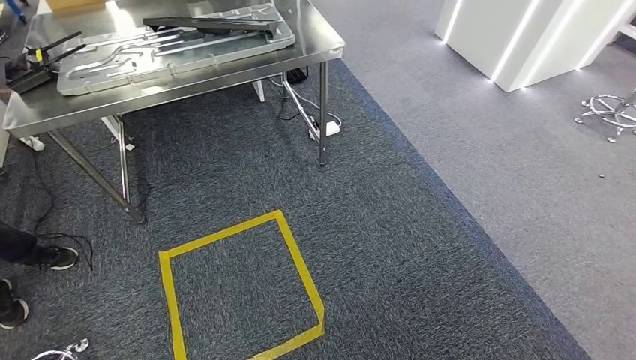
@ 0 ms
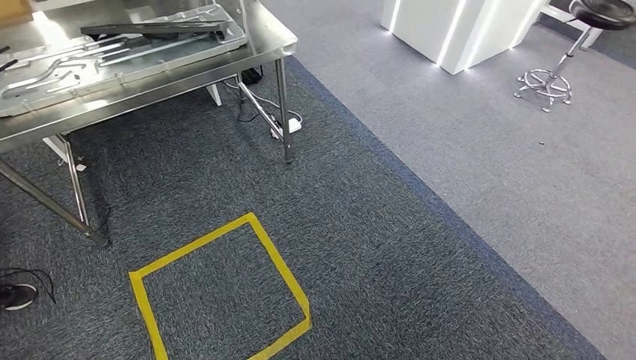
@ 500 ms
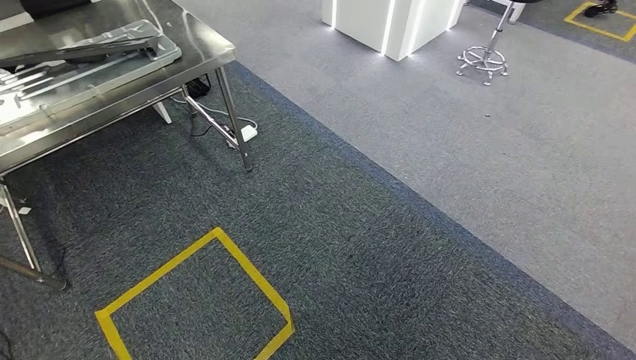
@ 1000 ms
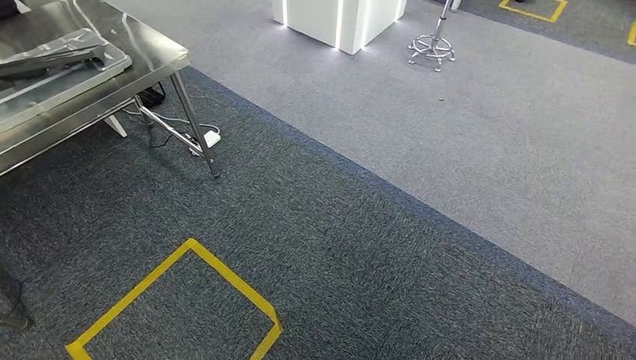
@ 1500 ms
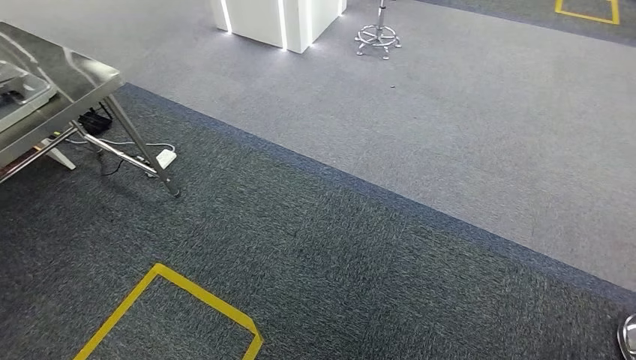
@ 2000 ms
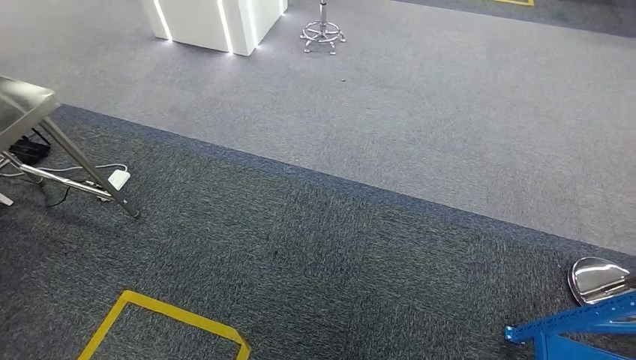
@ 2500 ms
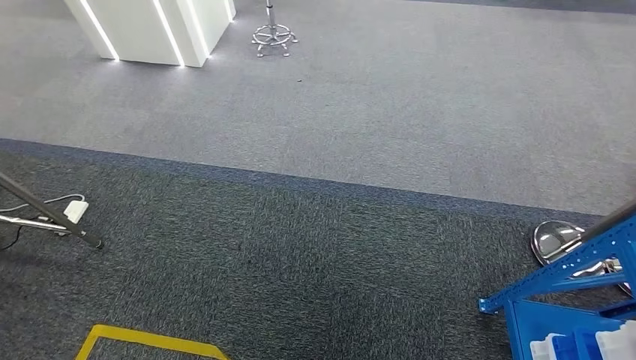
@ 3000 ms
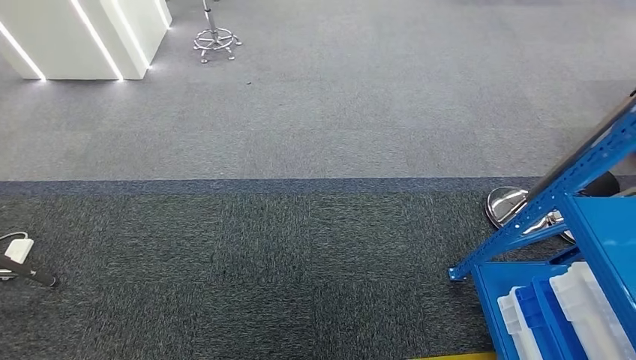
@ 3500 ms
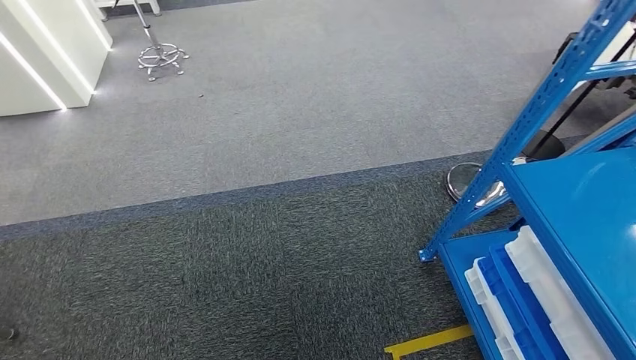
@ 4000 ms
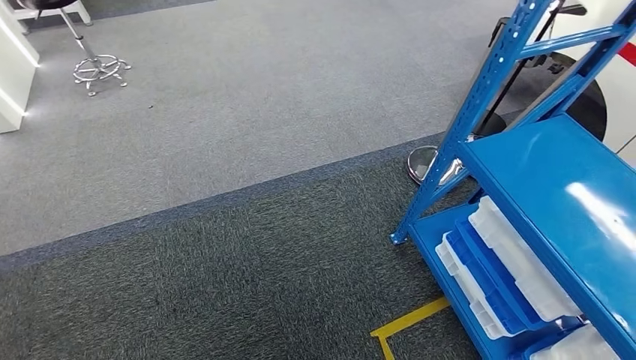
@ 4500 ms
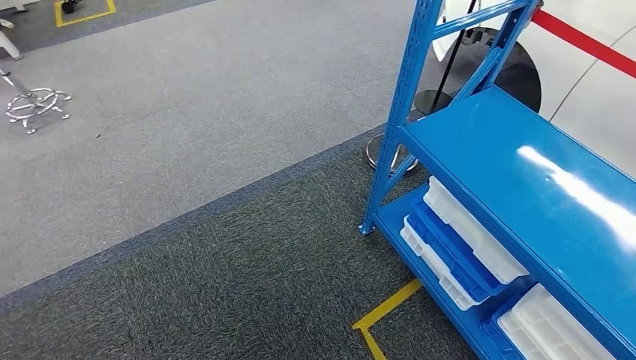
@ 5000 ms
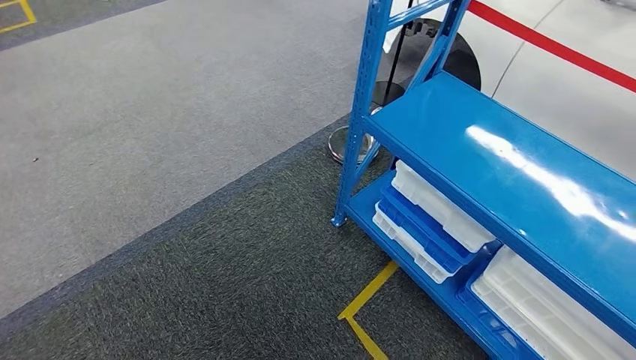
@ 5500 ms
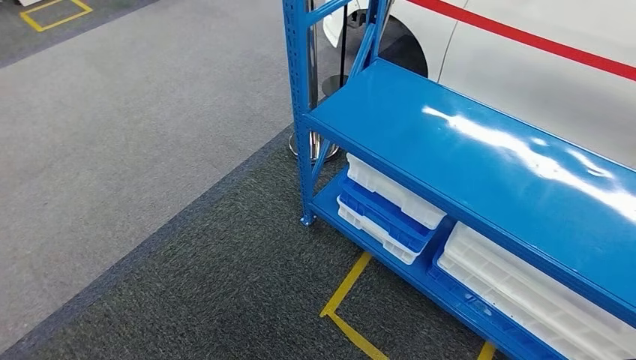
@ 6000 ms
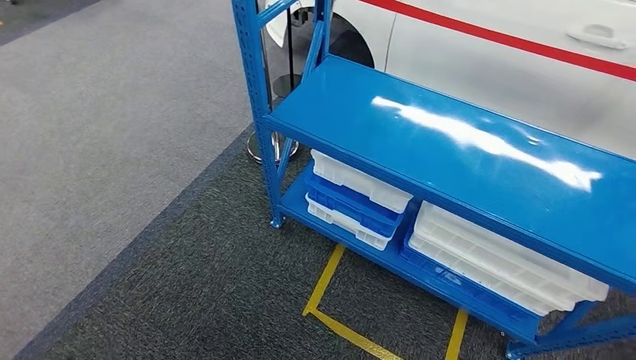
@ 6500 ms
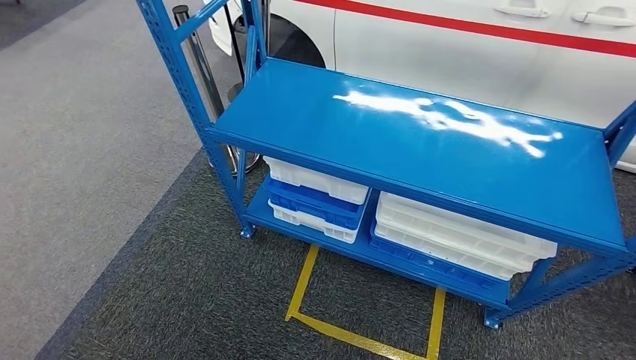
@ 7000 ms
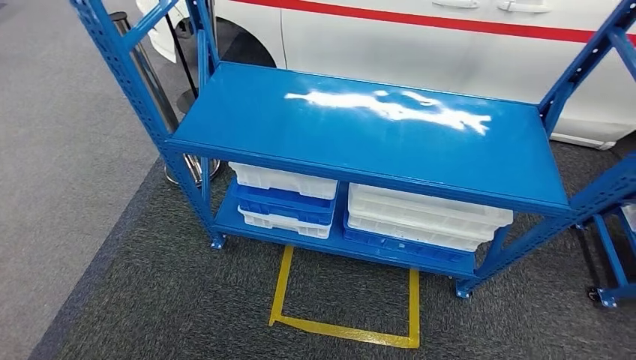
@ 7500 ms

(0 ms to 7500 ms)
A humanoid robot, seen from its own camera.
Step, 0 ms - 7500 ms: Move to the initial position of the shelf.
